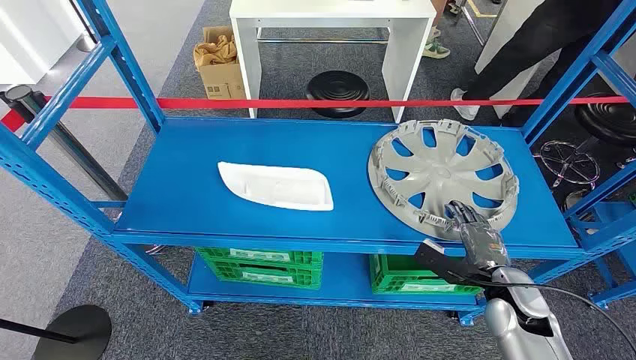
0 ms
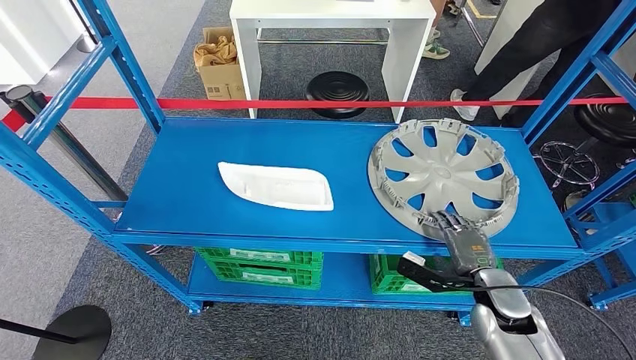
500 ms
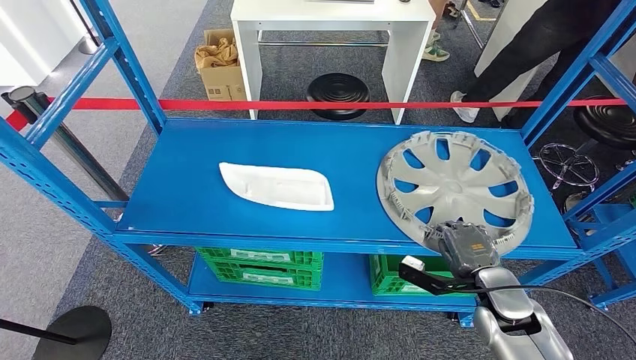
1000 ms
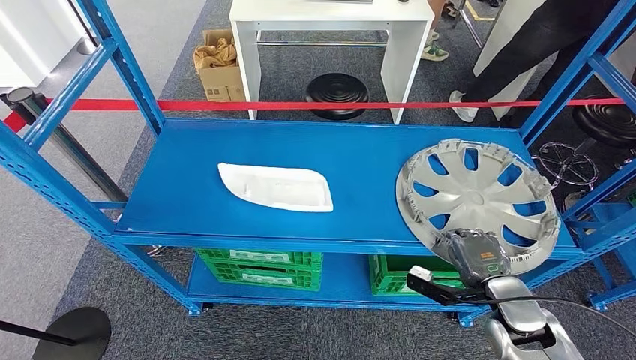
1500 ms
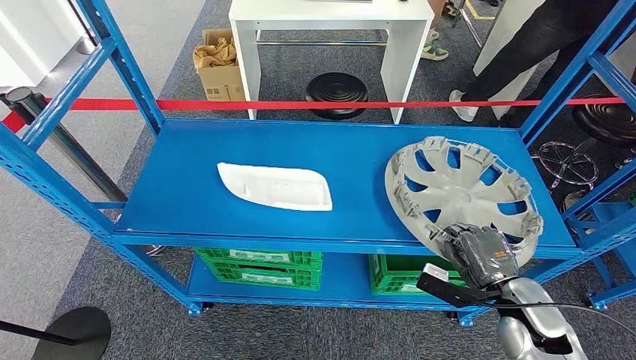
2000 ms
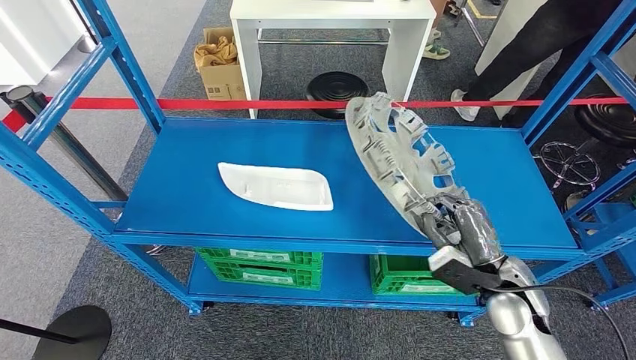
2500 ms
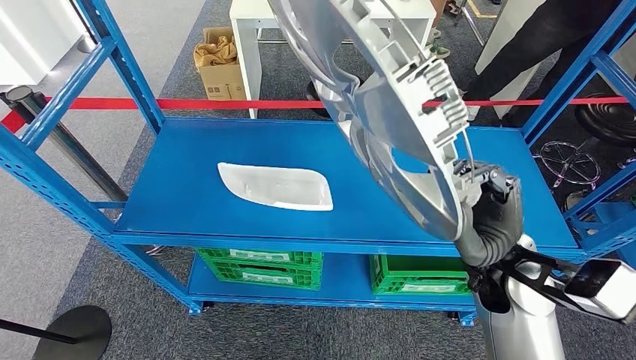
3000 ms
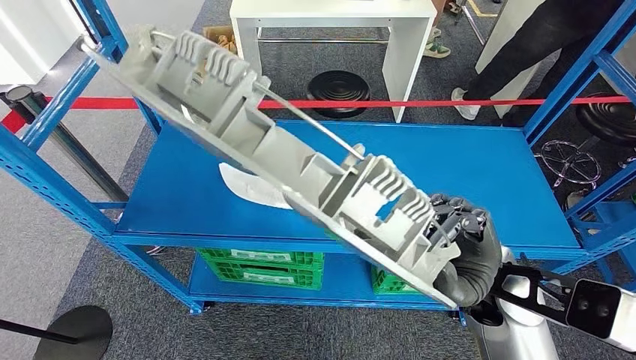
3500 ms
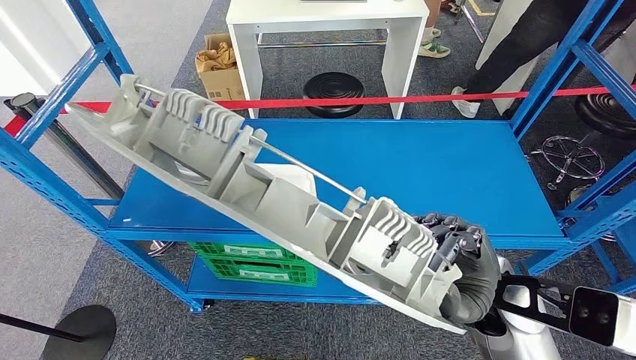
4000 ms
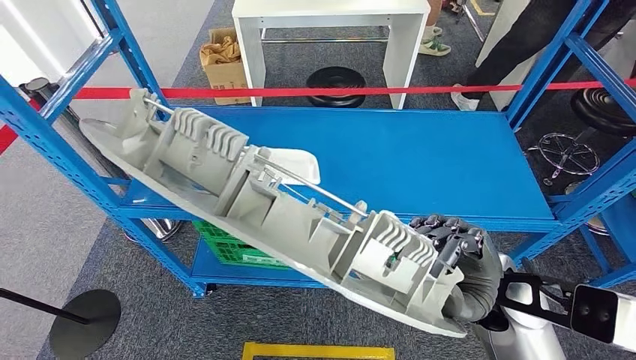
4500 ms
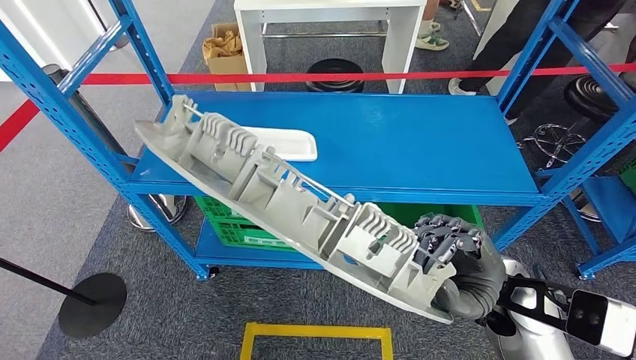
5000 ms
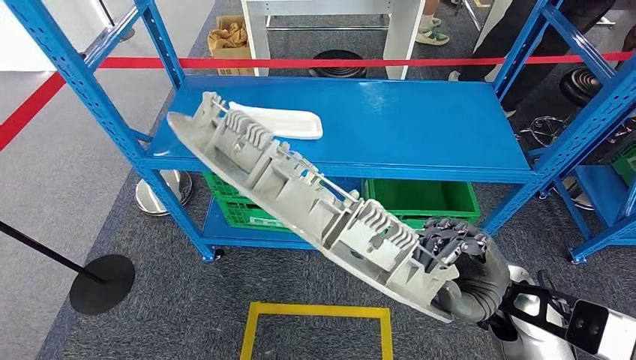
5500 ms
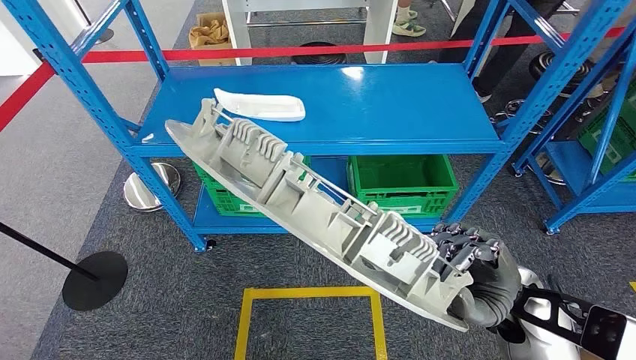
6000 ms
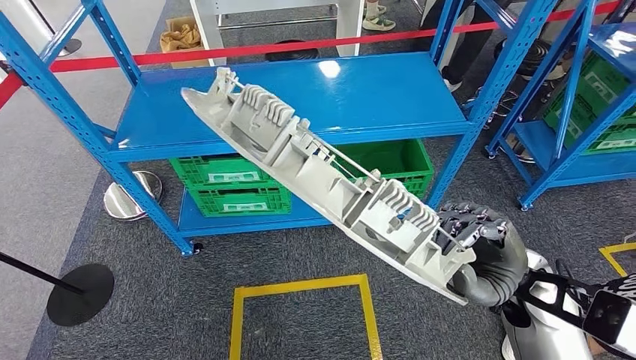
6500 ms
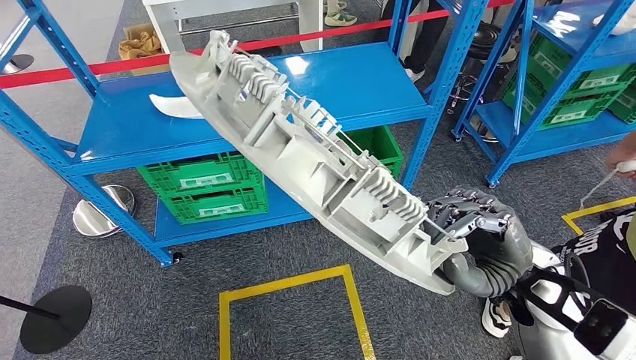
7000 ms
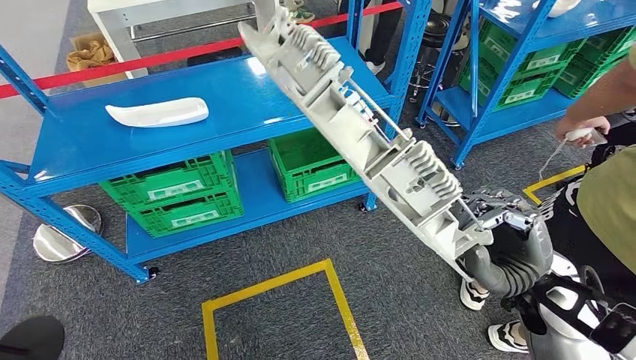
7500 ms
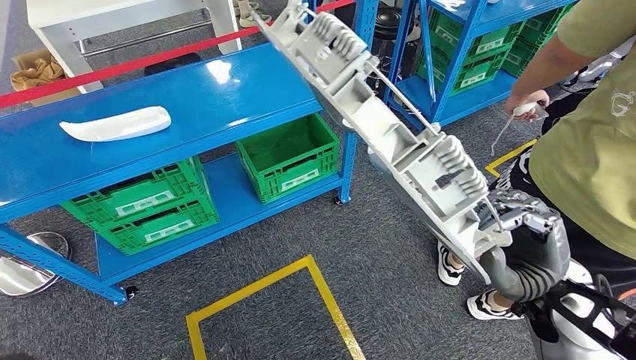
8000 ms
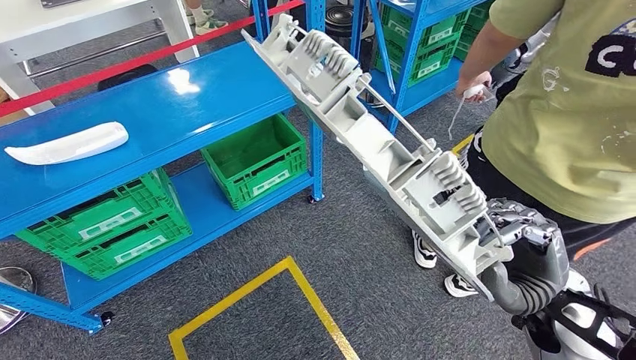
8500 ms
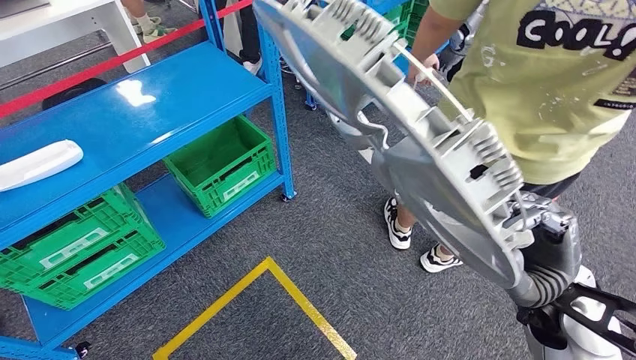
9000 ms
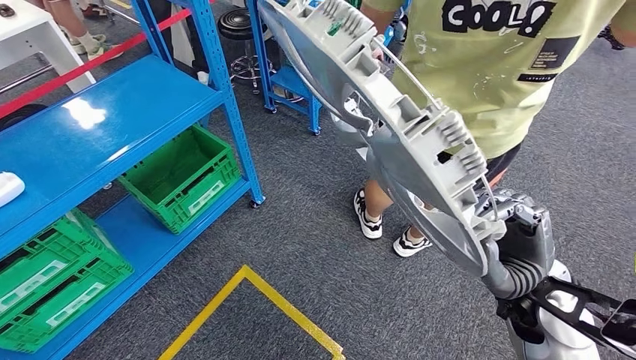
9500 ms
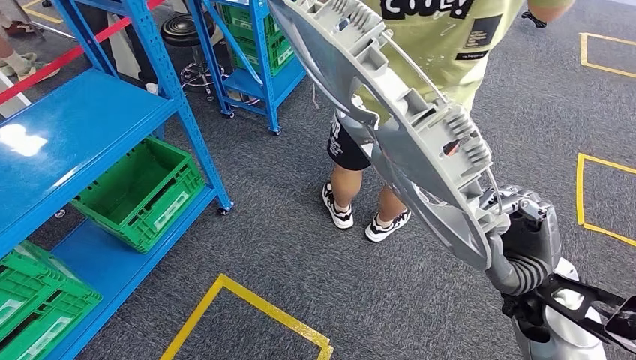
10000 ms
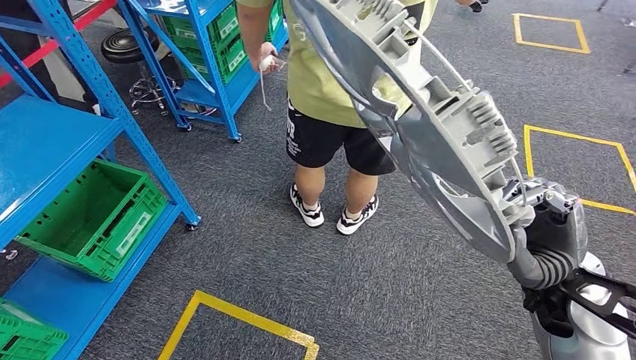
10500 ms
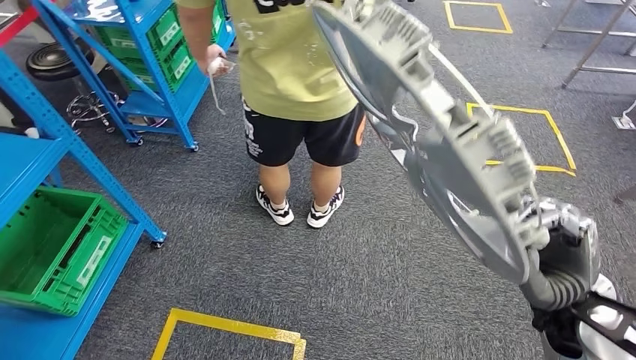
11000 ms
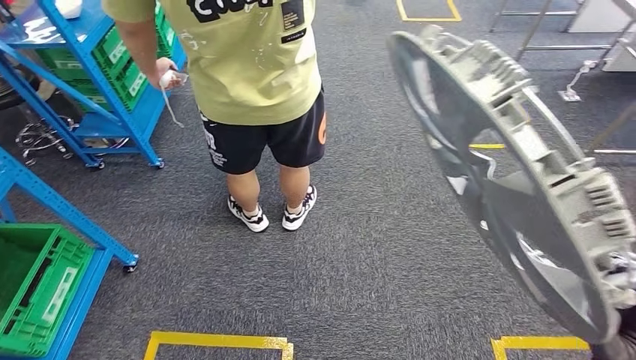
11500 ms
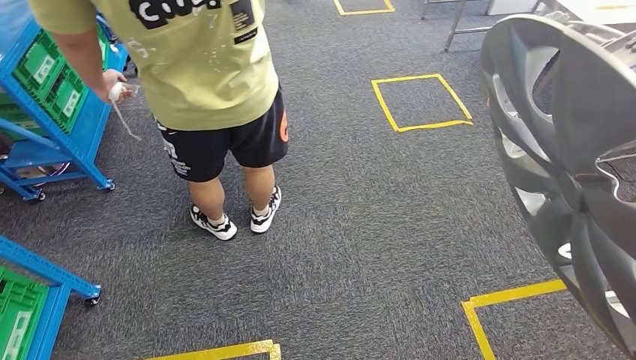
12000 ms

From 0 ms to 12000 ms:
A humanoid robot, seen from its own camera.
Step, from 0 ms to 3000 ms: Pick up the small parts from the shelf.

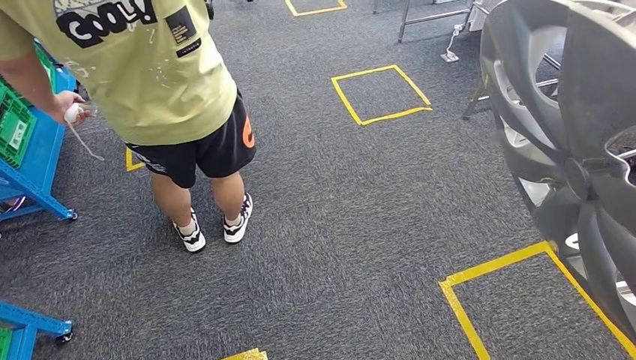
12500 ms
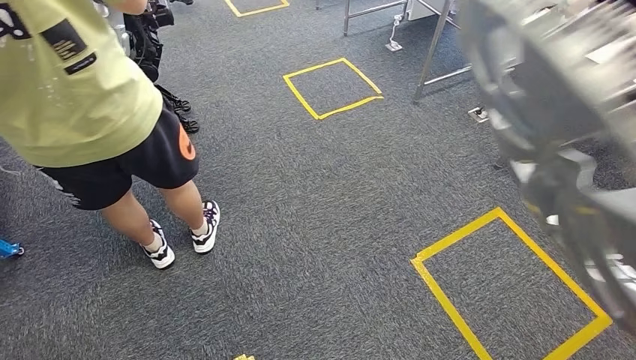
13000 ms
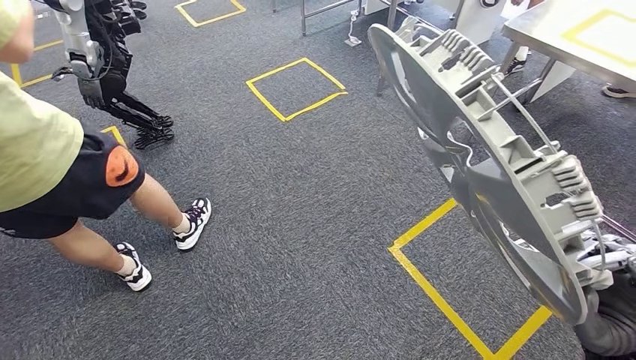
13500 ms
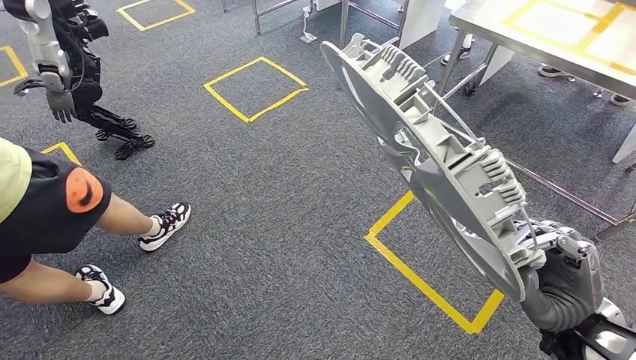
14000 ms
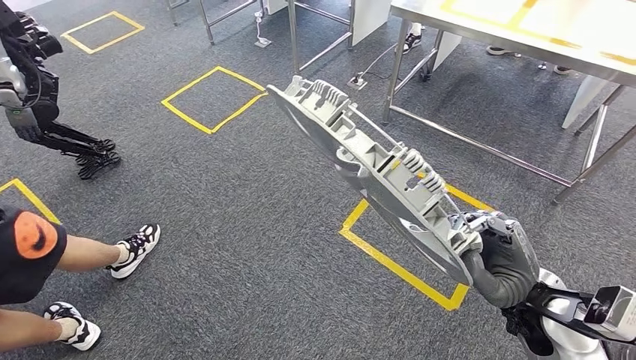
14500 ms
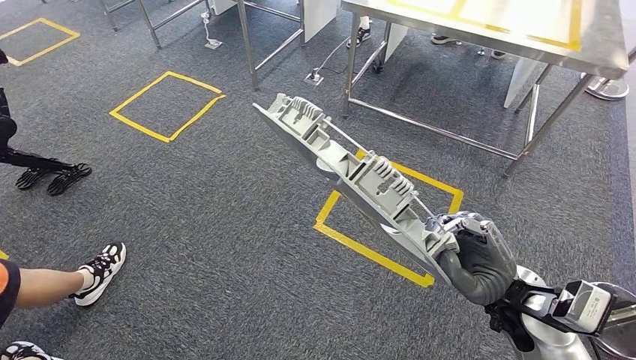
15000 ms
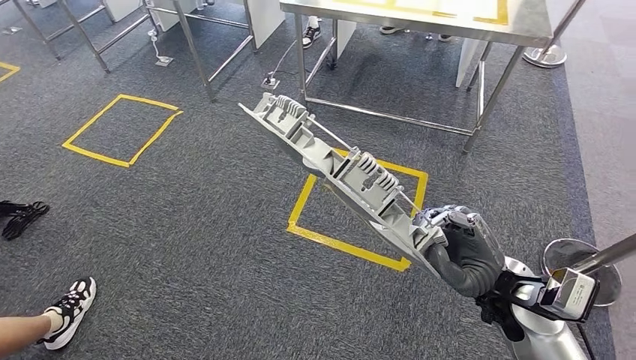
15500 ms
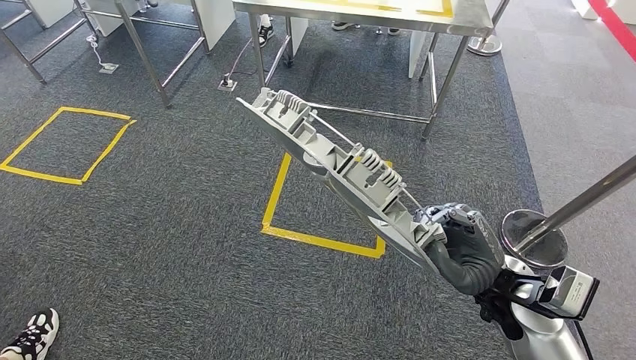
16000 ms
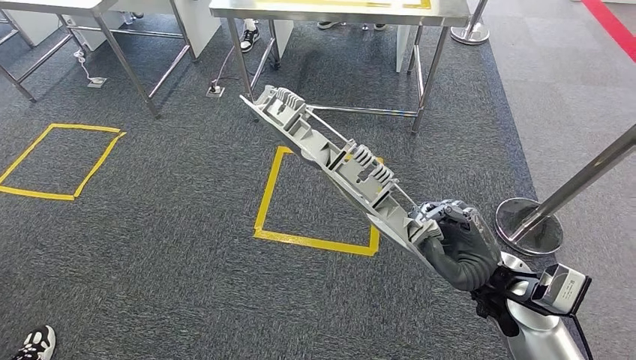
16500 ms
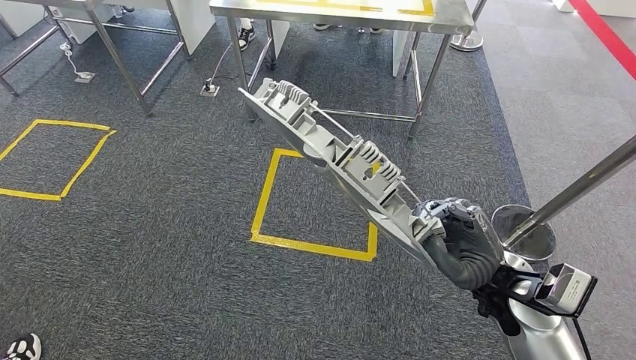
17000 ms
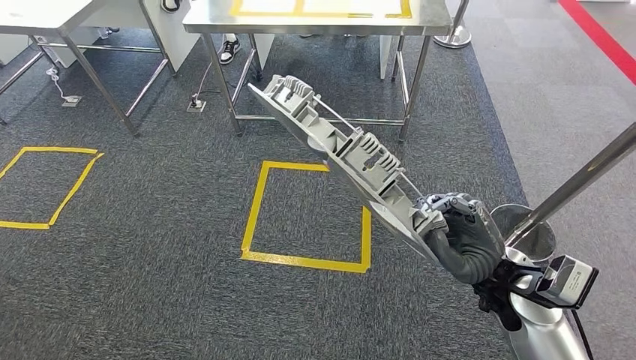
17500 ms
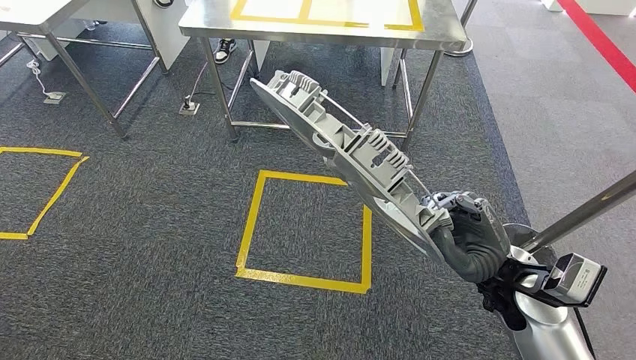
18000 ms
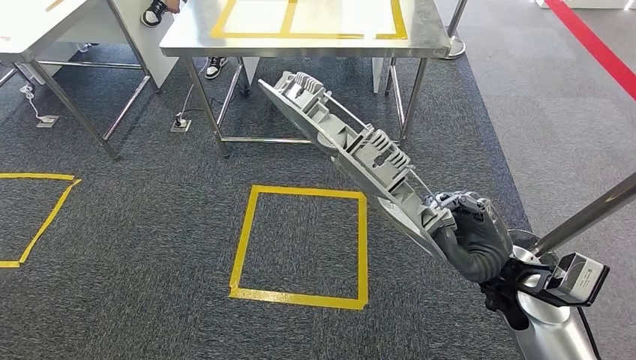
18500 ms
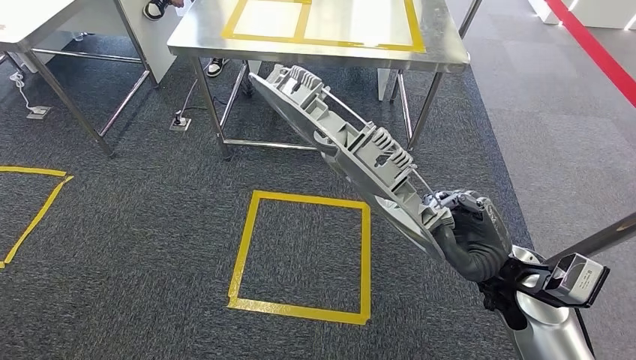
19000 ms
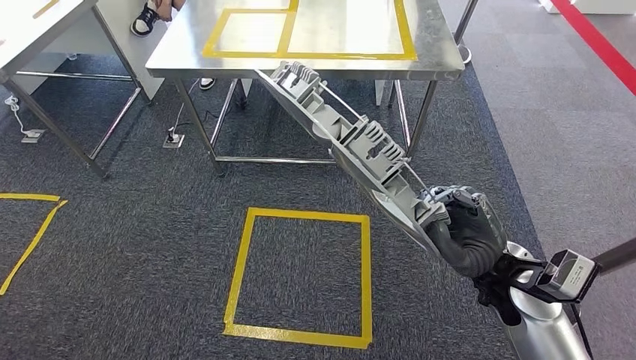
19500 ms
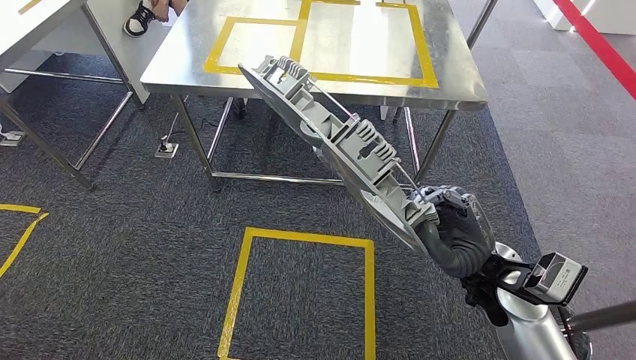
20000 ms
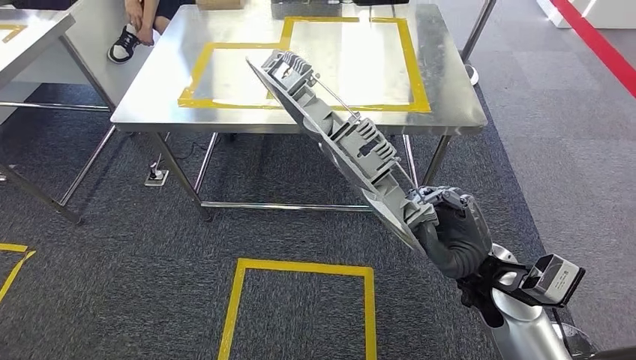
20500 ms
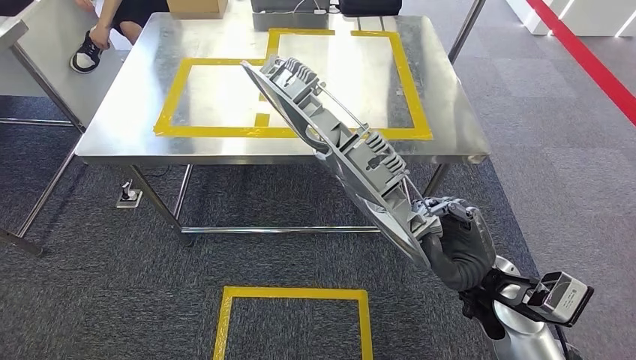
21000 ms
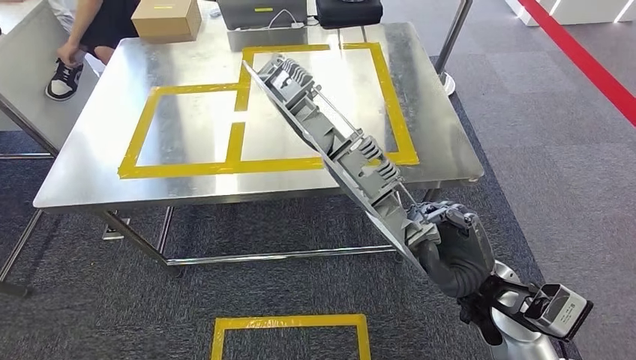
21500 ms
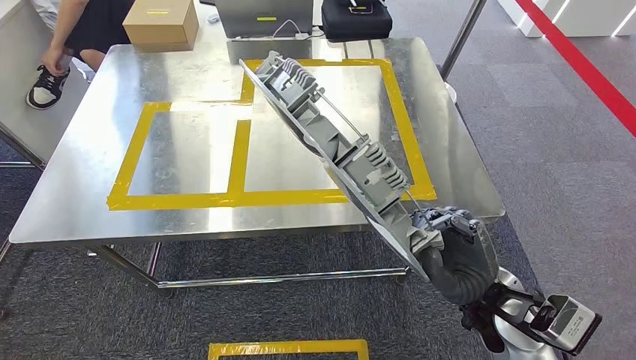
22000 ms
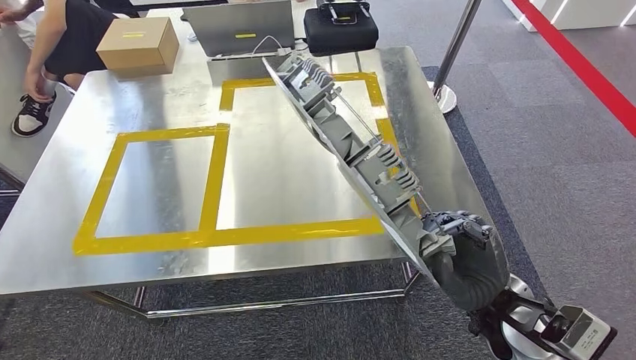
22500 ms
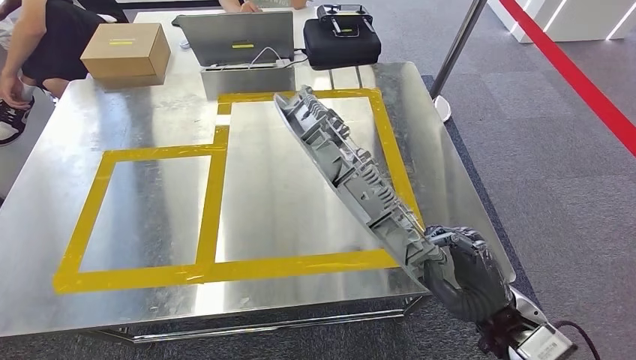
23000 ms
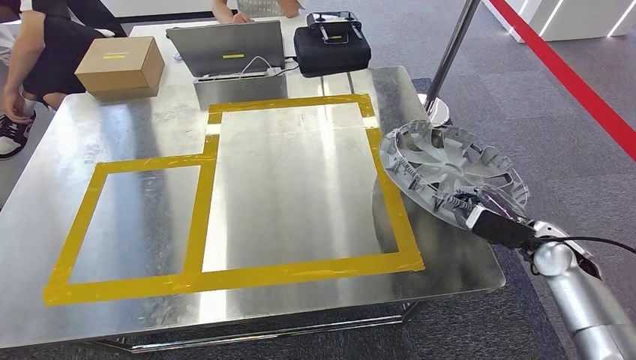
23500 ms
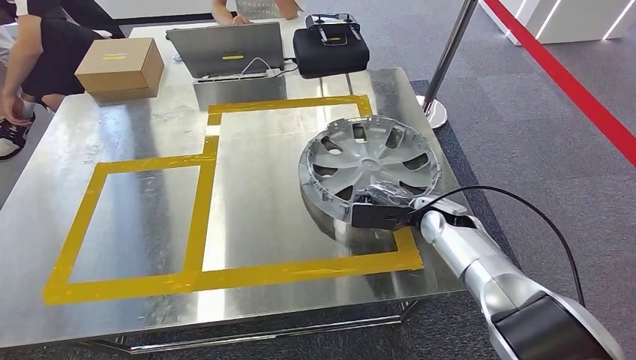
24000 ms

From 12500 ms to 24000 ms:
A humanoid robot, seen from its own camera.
Step, from 12500 ms to 22000 ms: Move the small parts to the workbench.
